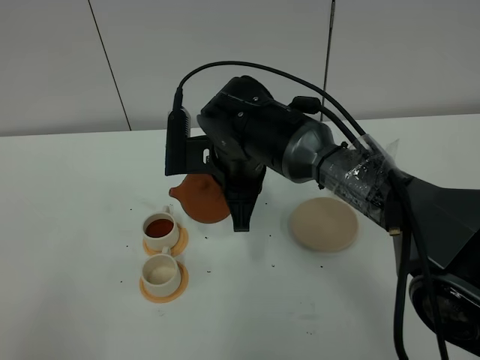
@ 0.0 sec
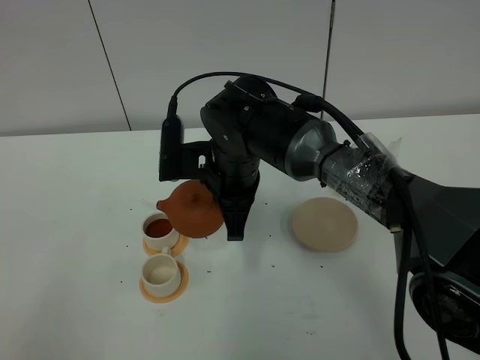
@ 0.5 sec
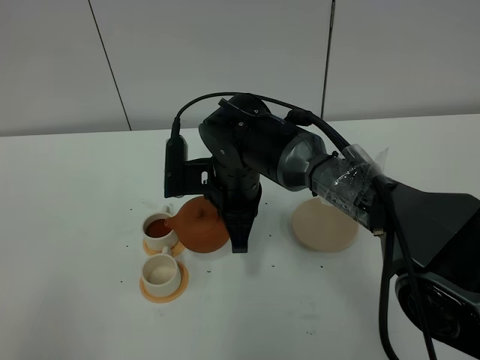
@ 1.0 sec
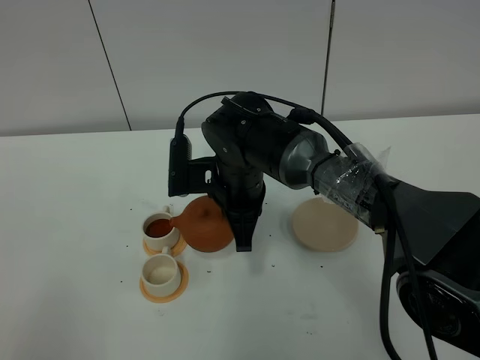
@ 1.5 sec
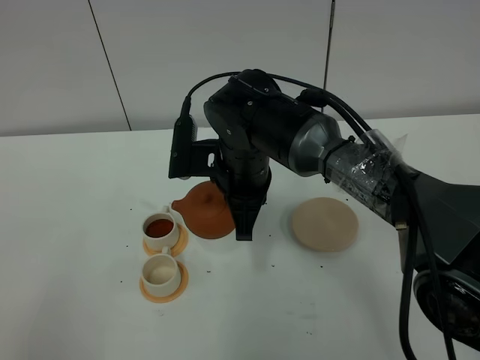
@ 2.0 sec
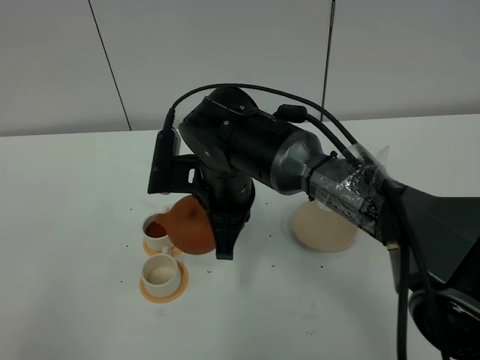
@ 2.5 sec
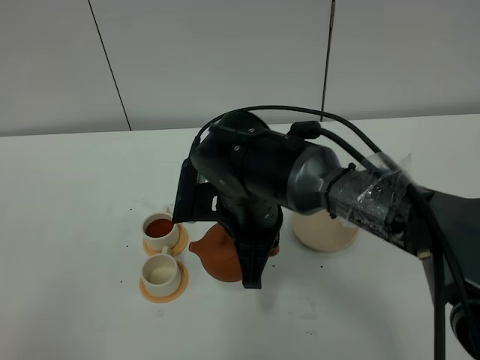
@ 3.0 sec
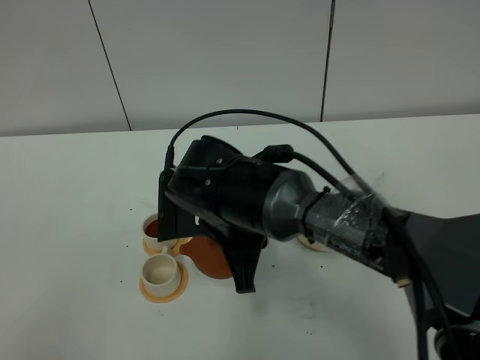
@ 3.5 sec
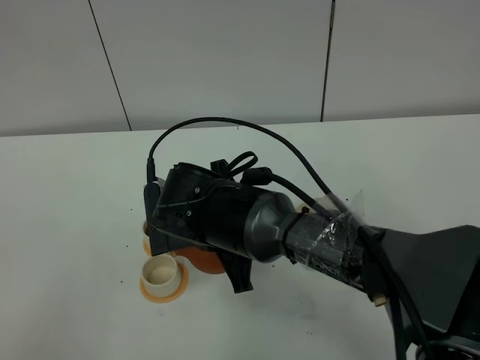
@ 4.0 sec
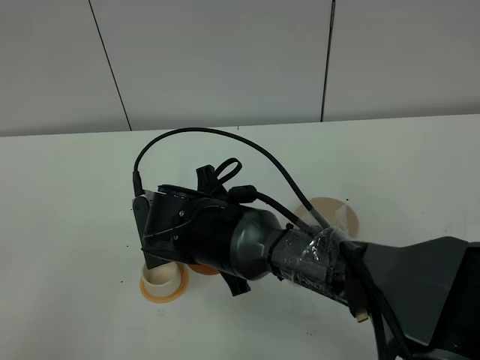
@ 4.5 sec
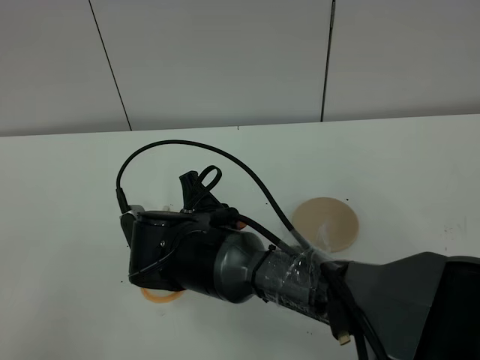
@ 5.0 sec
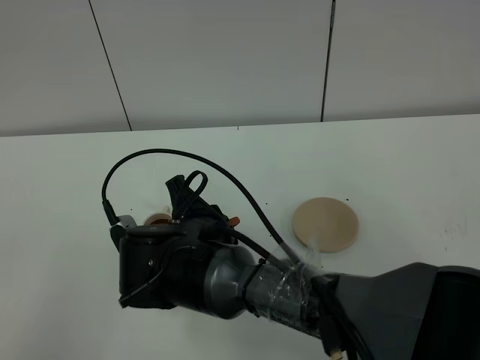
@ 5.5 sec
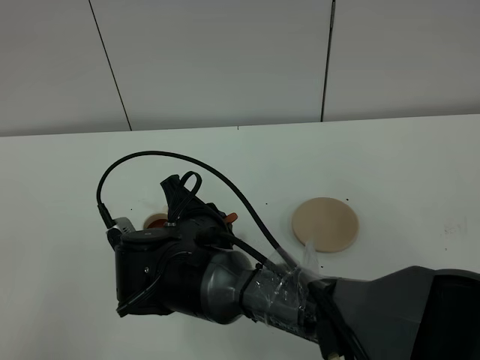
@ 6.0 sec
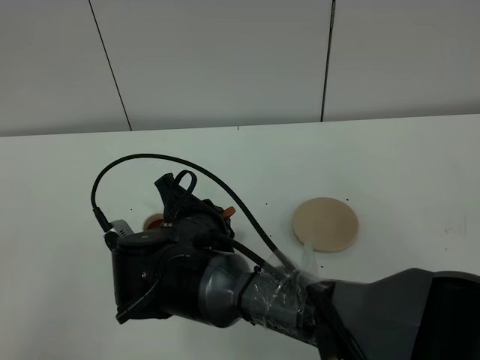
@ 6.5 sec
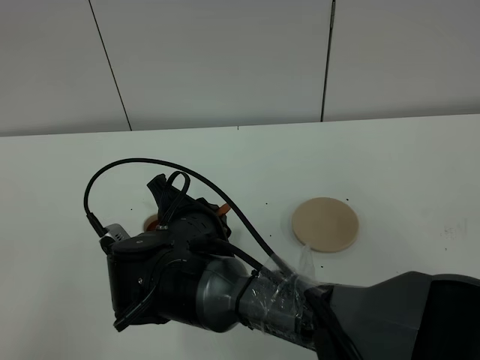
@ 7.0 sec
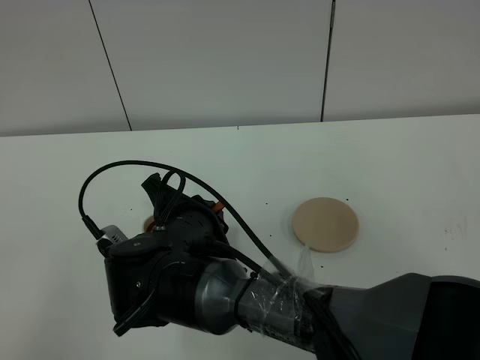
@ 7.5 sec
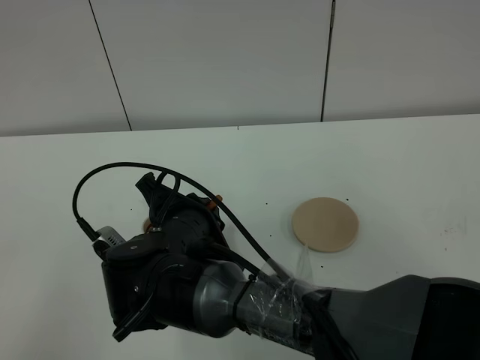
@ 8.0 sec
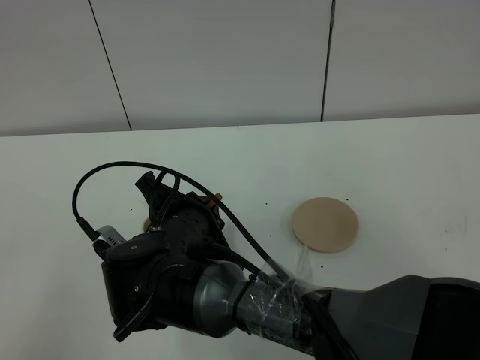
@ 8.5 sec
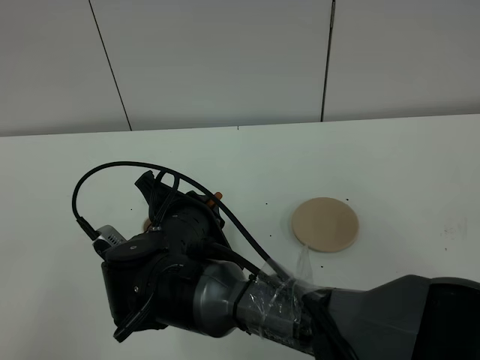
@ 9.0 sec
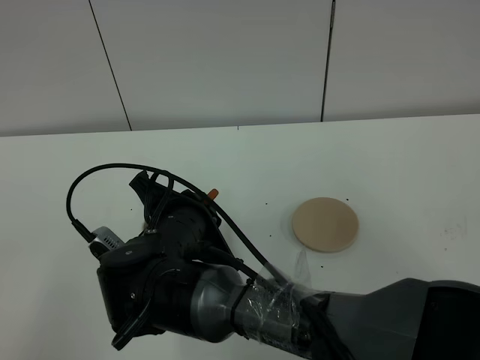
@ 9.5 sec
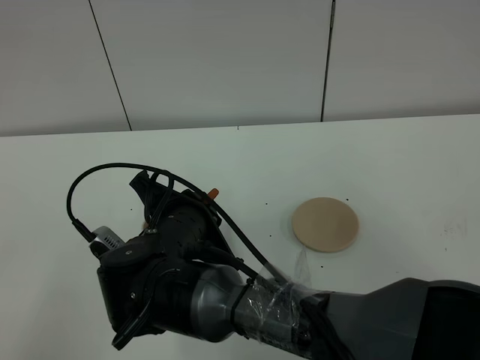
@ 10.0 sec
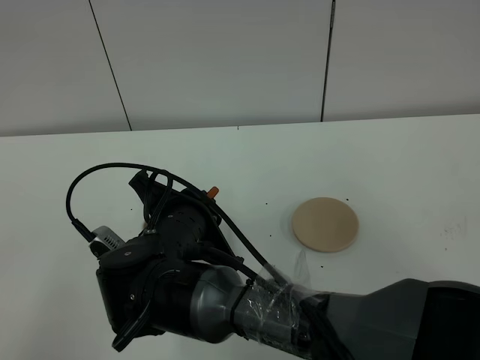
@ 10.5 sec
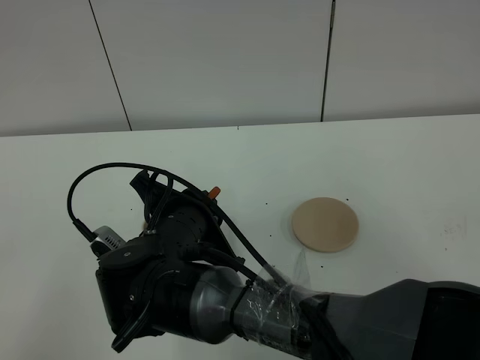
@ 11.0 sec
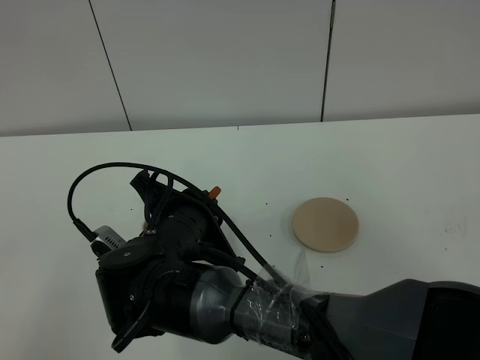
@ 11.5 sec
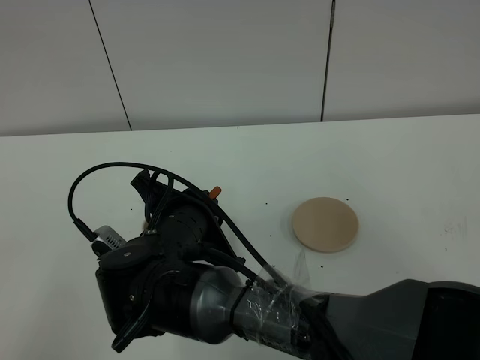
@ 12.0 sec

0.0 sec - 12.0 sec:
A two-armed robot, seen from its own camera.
Task of the whole recording: grasp the brown teapot and pour the tea into the two white teacups one by one, put the brown teapot back in its original place.
0.0 sec - 2.0 sec: There are only small adjustments of the grippers.
2.0 sec - 4.0 sec: The right gripper shifts roughly 5 cm backward.
6.0 sec - 8.0 sec: The grippers stay close to where they were, moving slightly.
8.0 sec - 12.0 sec: Both grippers stay put.

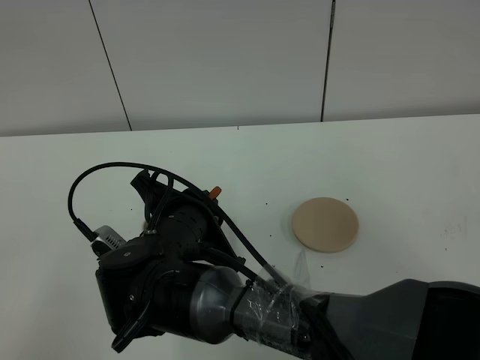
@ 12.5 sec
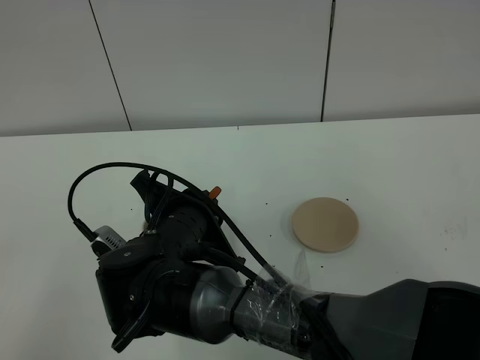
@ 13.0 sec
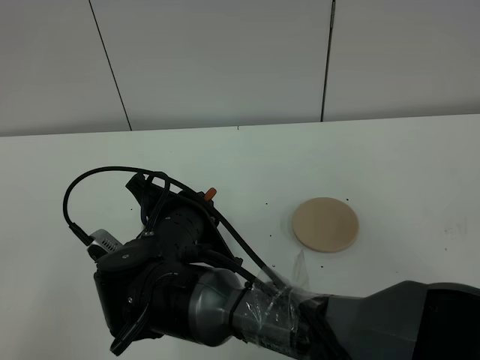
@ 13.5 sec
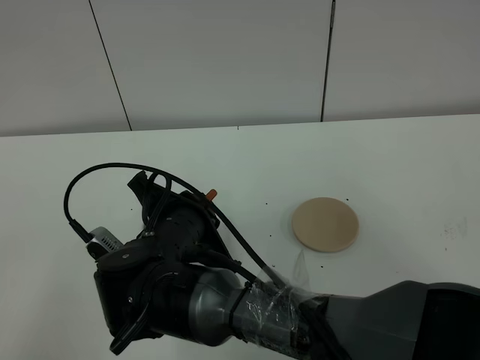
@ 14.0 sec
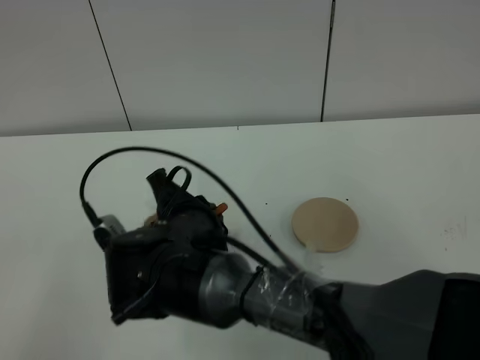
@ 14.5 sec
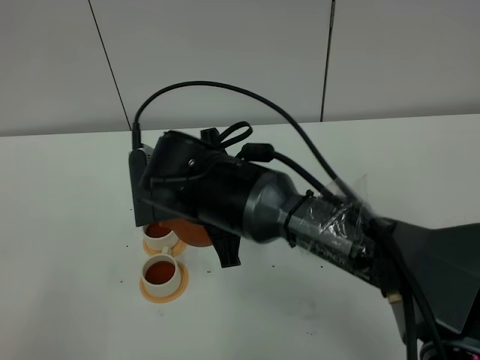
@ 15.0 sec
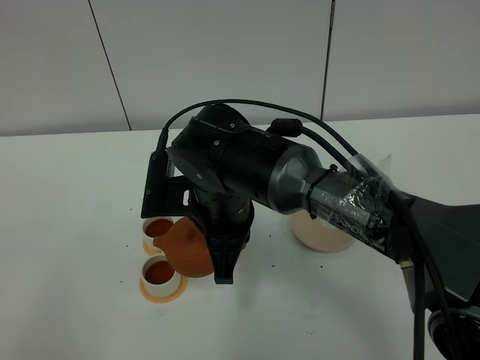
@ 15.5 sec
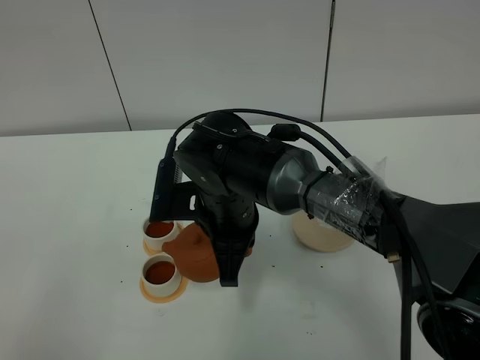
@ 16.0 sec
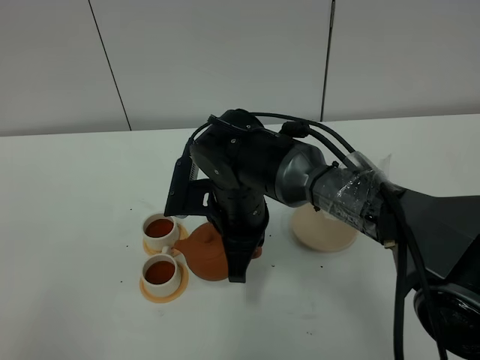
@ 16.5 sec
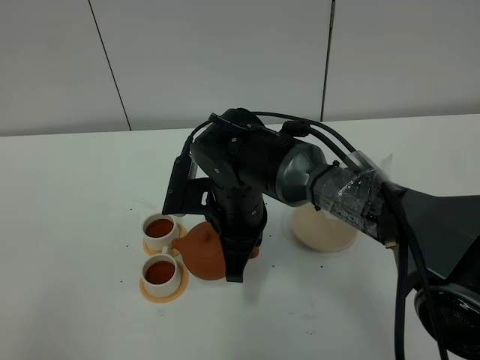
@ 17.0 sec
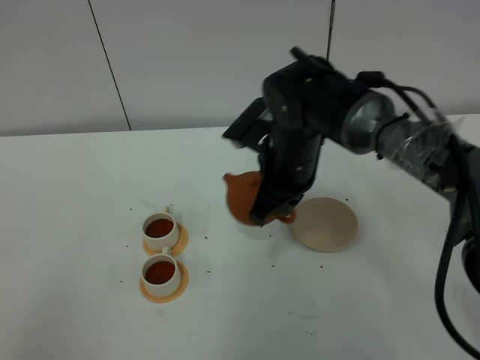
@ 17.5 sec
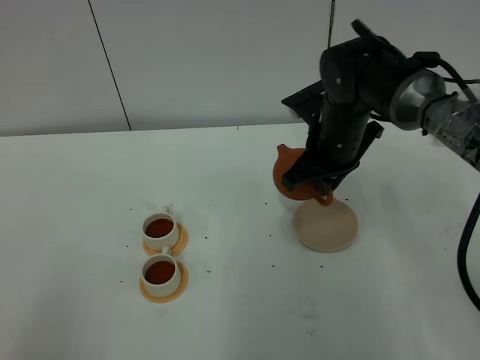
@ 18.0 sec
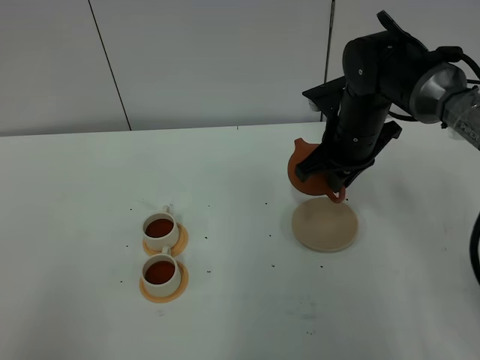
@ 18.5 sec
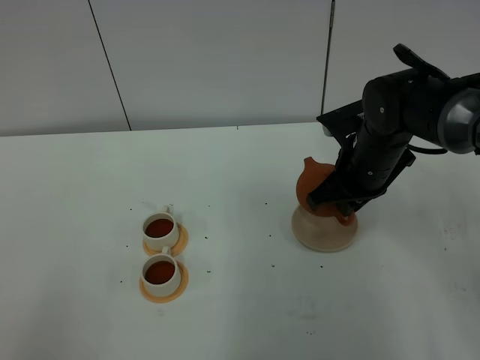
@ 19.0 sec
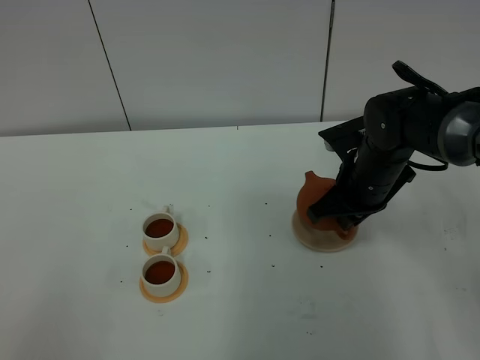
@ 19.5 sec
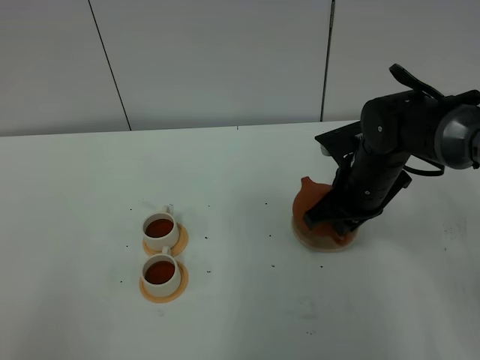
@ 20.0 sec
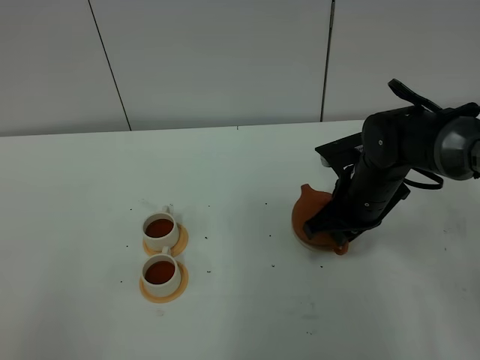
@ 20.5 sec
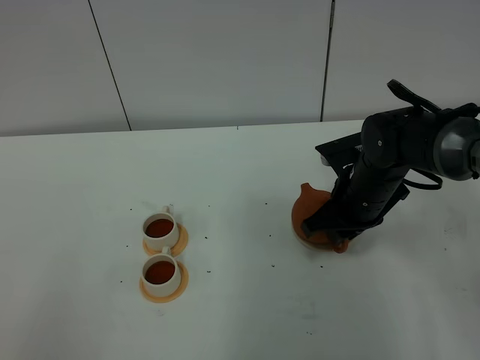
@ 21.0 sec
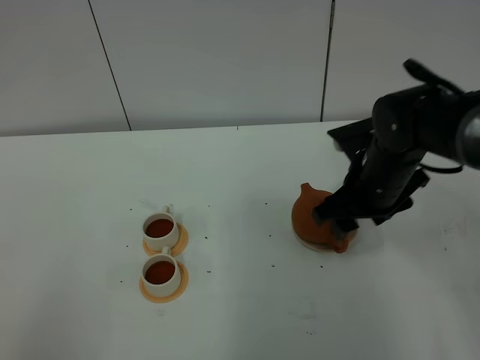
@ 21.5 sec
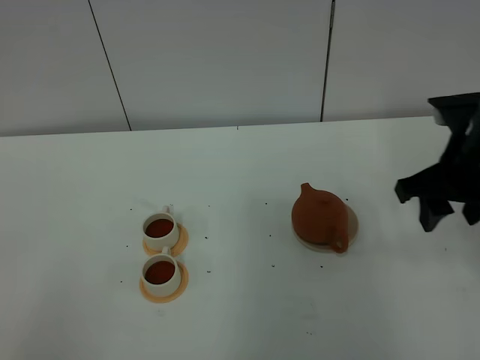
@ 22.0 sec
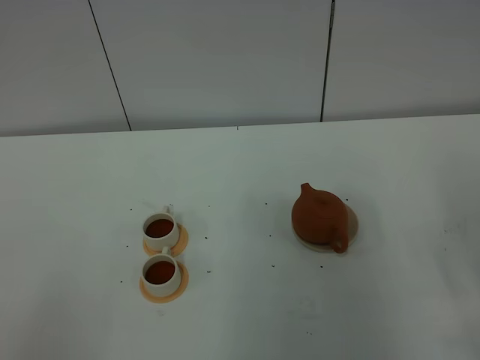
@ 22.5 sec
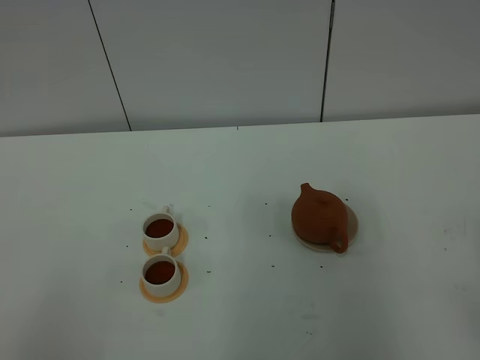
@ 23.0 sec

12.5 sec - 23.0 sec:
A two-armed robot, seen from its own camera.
Task of the whole recording: grasp the brown teapot and pour the tea into the two white teacups one by one, put the brown teapot back in its original place.
Step, 12.5 sec - 15.5 sec: Pour tea into the teacup with the right gripper.
12.5 sec - 14.5 sec: There are only small adjustments of the grippers.
14.5 sec - 16.5 sec: The right gripper heads forward and to the right, covering some 10 cm.
16.5 sec - 19.0 sec: The right gripper shifts roughly 15 cm to the right.
19.0 sec - 21.0 sec: The right gripper opens up.
21.0 sec - 23.0 sec: The right gripper heads backward and to the right, covering approximately 35 cm, and opens.

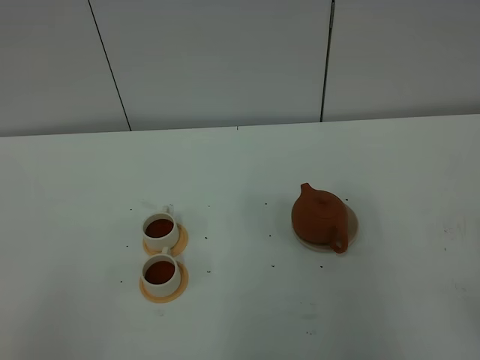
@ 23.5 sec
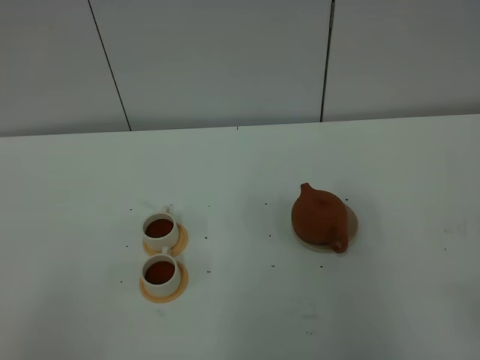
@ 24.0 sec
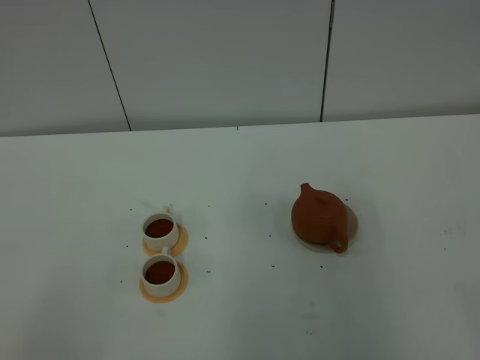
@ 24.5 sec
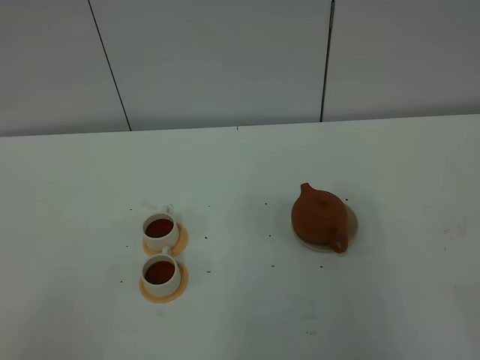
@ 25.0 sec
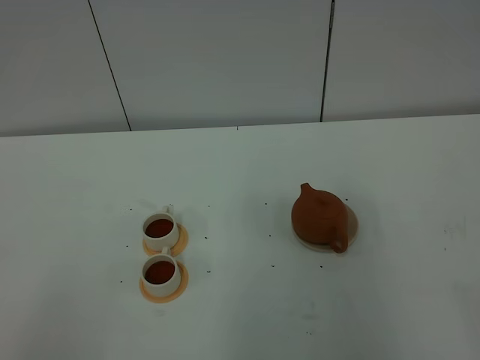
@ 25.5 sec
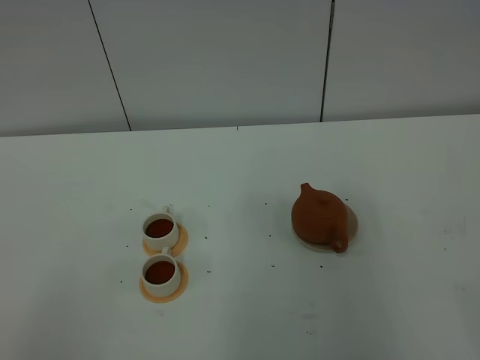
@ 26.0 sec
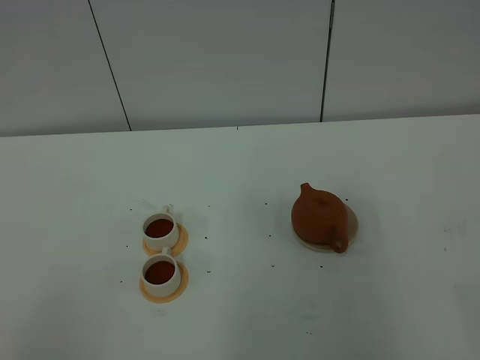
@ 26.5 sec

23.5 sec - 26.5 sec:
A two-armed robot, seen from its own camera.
Task of the whole recording: grasp the brown teapot and pour the tea into the two white teacups one by one, put the brown teapot back in its original place.
25.0 sec - 26.5 sec: Neither gripper changes place.
